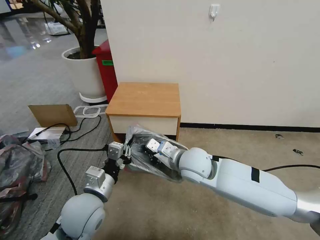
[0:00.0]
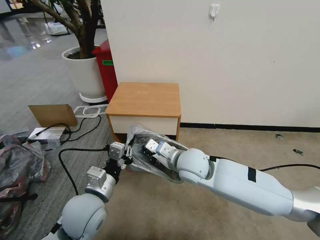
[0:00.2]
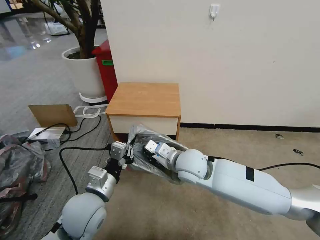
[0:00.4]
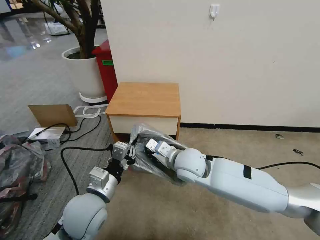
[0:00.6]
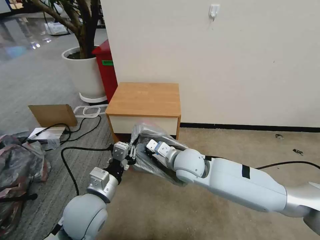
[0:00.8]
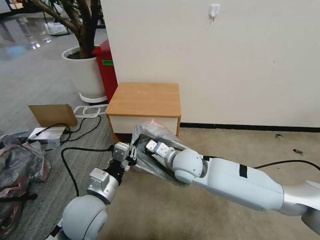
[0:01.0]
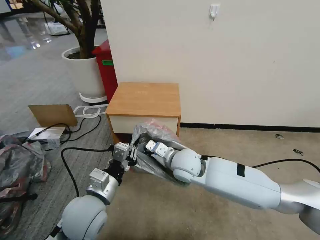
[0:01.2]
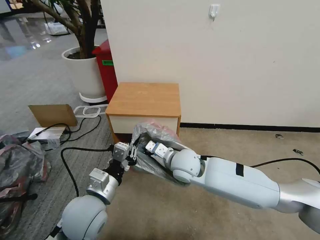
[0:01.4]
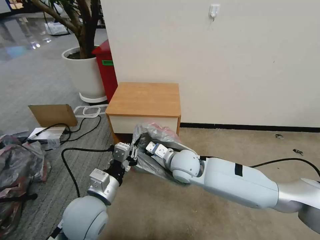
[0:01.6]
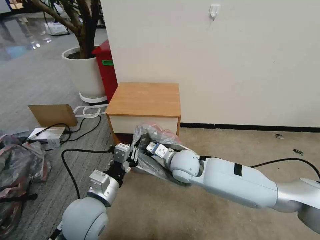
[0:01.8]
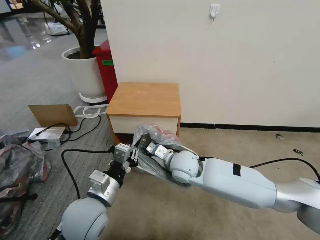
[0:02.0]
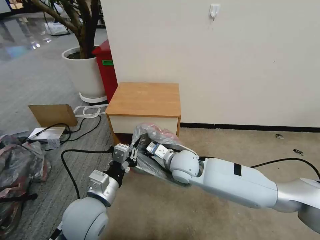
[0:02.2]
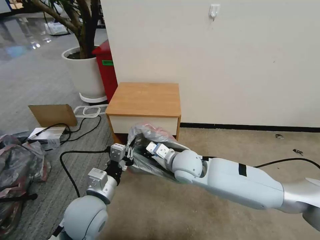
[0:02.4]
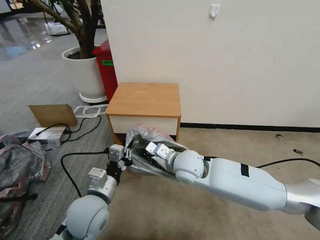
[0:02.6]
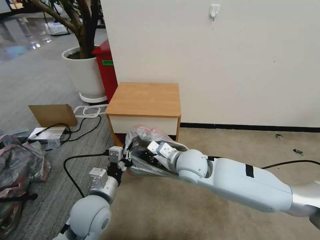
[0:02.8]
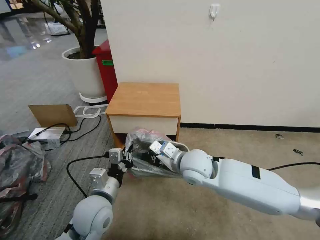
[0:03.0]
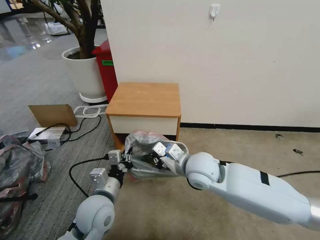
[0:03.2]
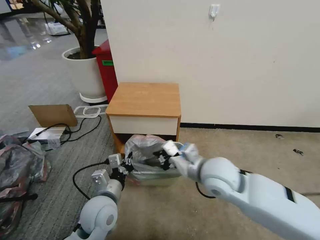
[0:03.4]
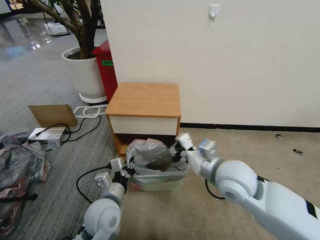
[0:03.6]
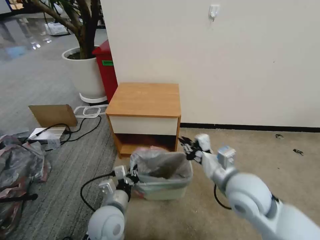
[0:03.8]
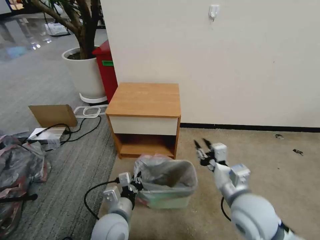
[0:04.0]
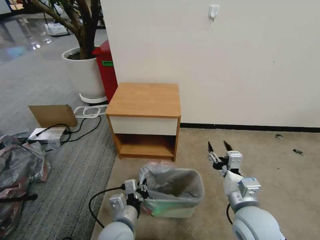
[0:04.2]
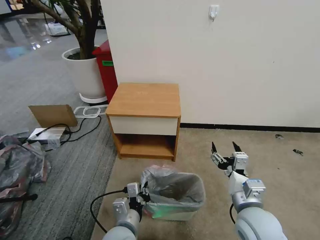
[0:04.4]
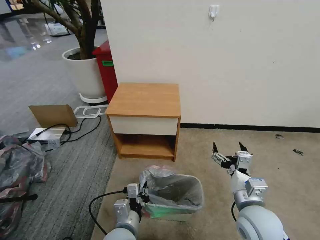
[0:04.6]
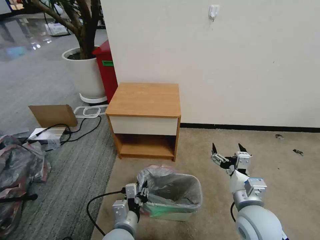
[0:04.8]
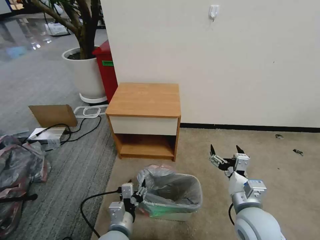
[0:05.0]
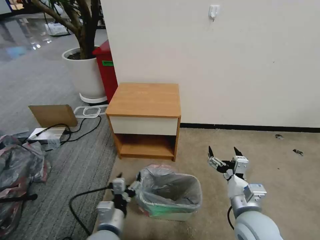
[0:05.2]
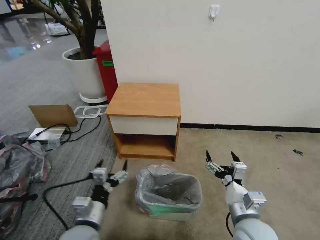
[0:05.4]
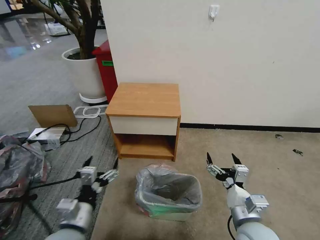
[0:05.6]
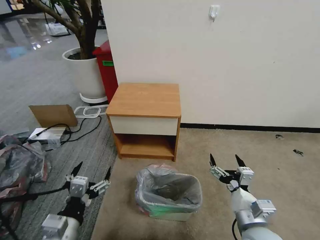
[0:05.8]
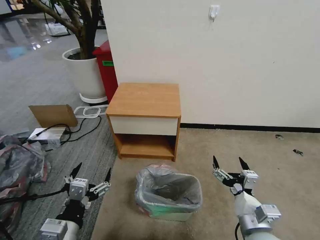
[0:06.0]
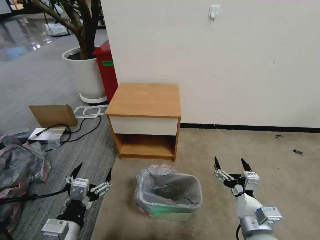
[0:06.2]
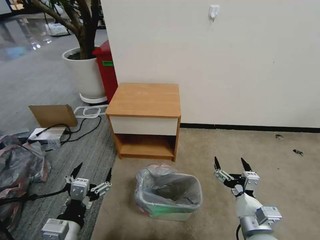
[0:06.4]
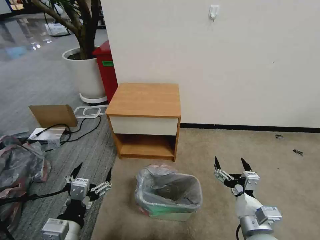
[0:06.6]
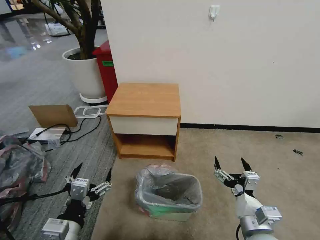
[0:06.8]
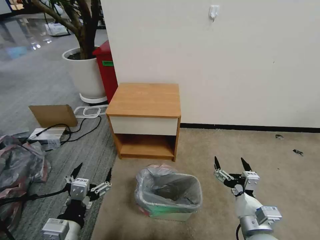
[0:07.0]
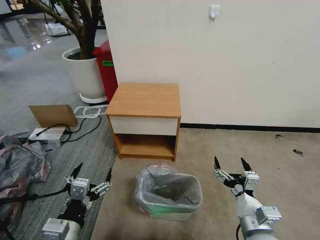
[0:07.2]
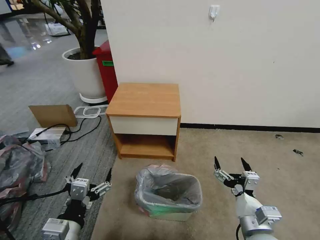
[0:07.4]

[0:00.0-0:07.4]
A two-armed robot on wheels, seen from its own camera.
Task of the whole recording: Pick up the garbage bag from the table and place it over the trash can.
0:00.0 to 0:01.4: There are only small adjustments of the grippers.
0:03.0 to 0:04.4: The left gripper heads downward, to the right and backward, covering approximately 10 cm, while the right gripper travels backward and to the right by about 20 cm, and opens.
0:04.4 to 0:06.0: The right gripper shifts about 5 cm backward. Meanwhile the left gripper travels to the left, upward and backward by some 15 cm, and opens.
0:06.0 to 0:07.4: Both grippers stay about where they are.

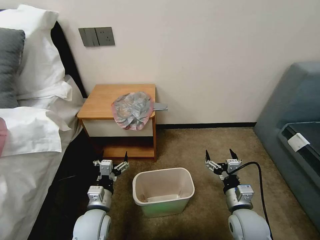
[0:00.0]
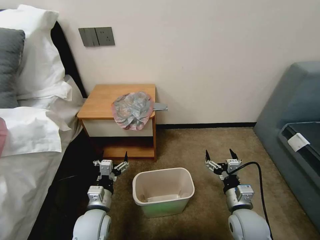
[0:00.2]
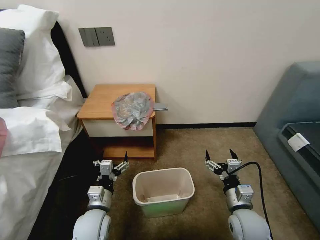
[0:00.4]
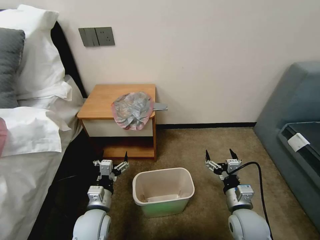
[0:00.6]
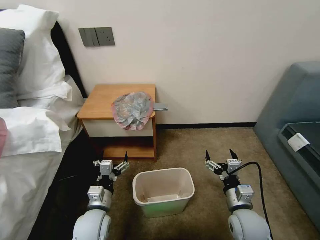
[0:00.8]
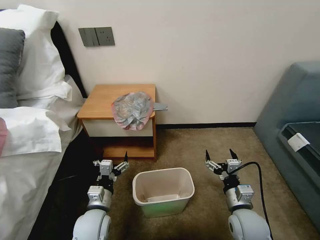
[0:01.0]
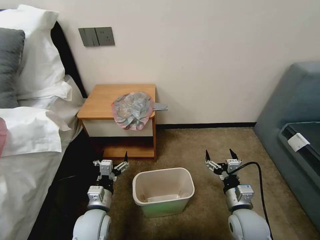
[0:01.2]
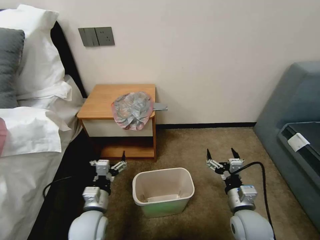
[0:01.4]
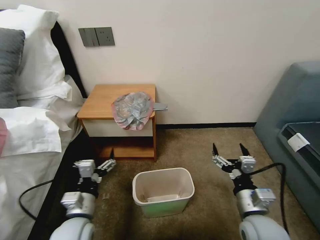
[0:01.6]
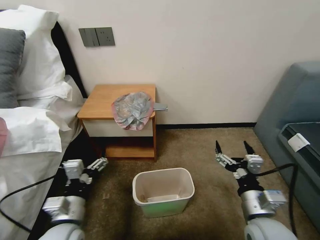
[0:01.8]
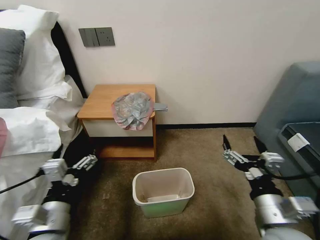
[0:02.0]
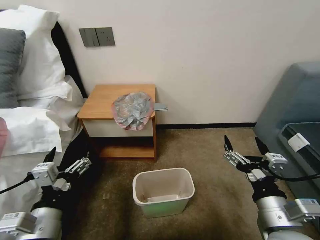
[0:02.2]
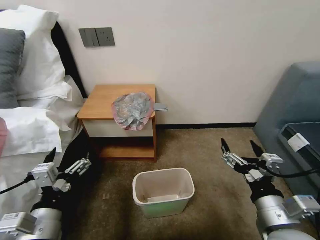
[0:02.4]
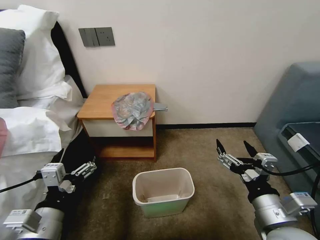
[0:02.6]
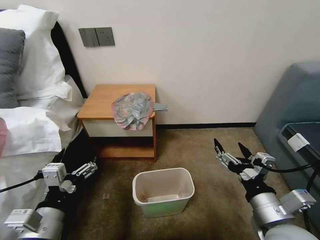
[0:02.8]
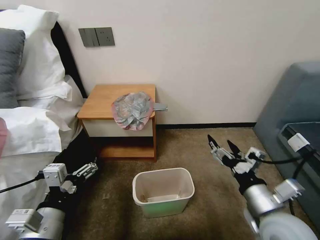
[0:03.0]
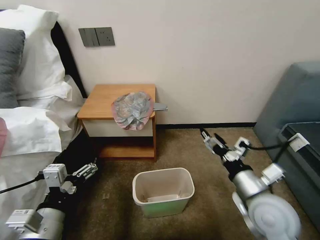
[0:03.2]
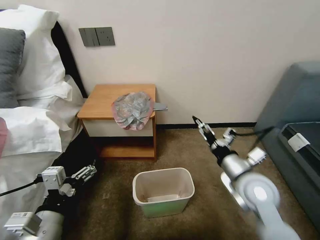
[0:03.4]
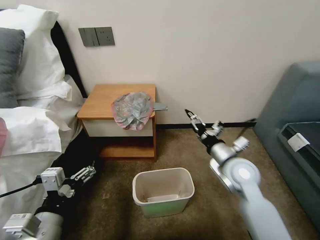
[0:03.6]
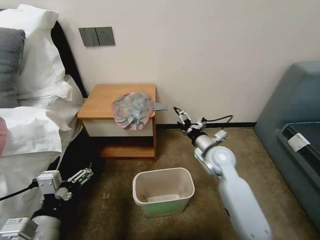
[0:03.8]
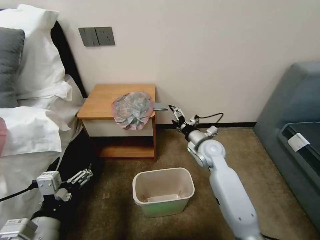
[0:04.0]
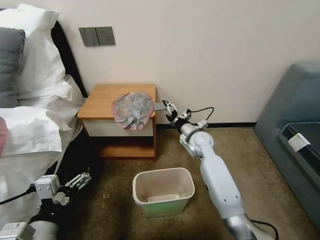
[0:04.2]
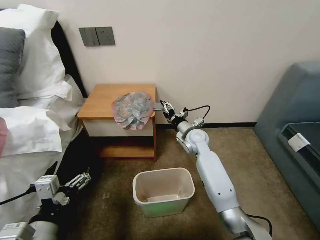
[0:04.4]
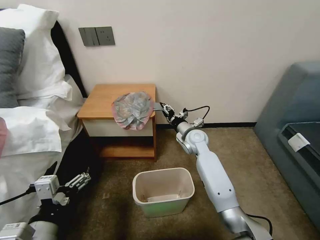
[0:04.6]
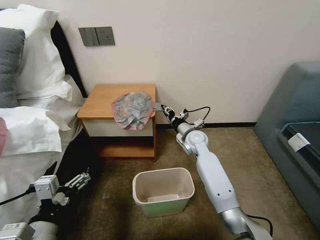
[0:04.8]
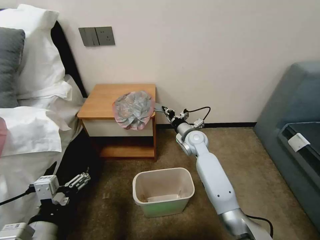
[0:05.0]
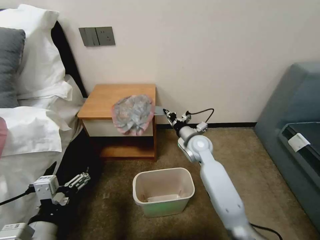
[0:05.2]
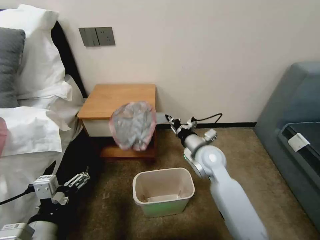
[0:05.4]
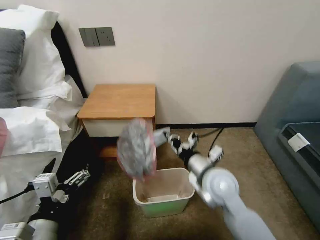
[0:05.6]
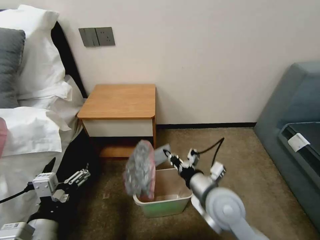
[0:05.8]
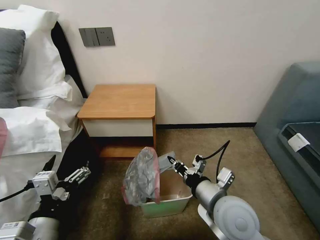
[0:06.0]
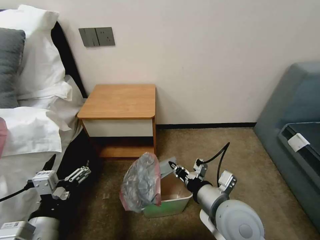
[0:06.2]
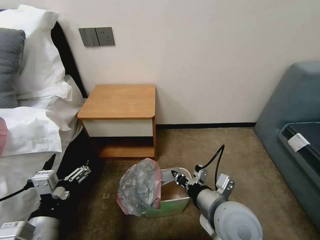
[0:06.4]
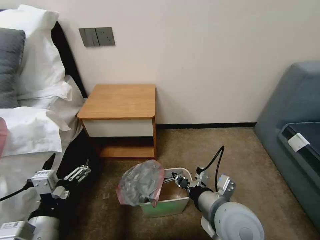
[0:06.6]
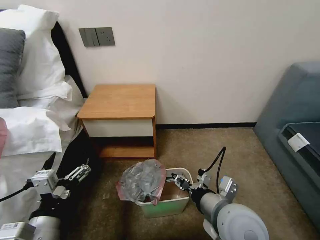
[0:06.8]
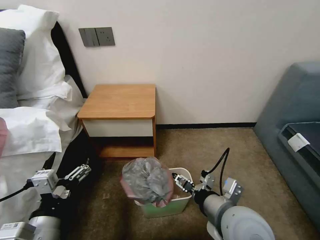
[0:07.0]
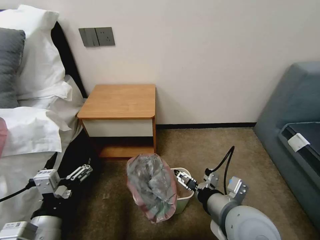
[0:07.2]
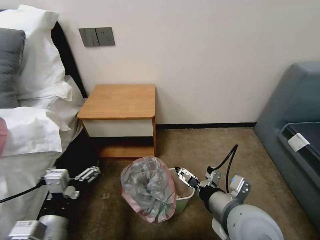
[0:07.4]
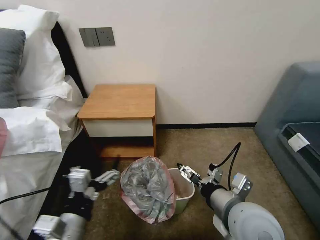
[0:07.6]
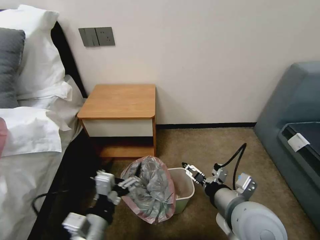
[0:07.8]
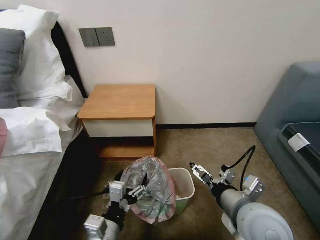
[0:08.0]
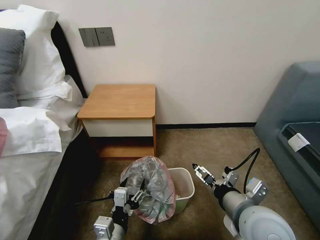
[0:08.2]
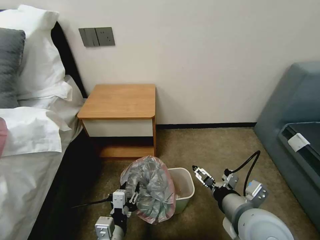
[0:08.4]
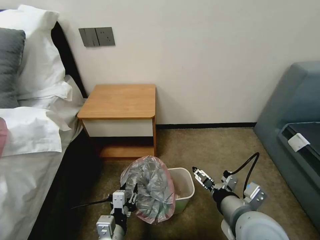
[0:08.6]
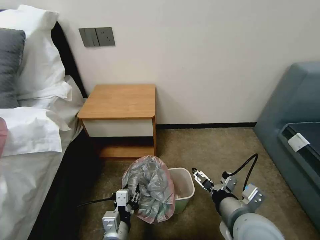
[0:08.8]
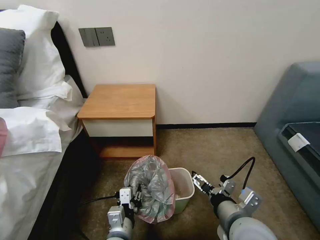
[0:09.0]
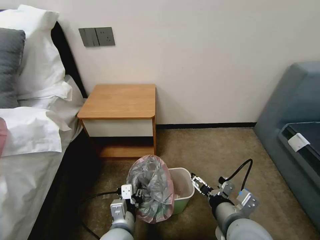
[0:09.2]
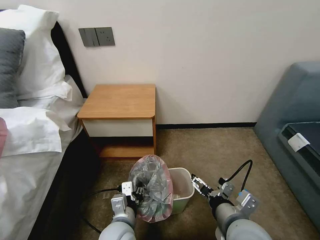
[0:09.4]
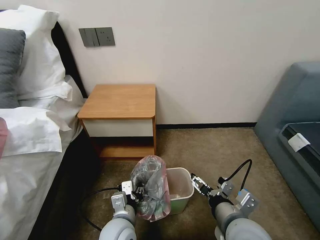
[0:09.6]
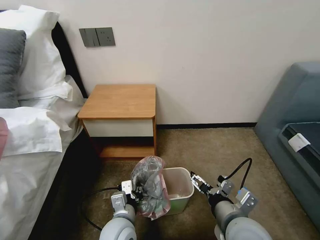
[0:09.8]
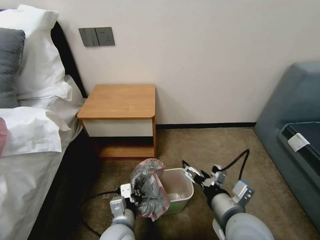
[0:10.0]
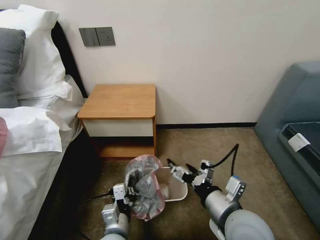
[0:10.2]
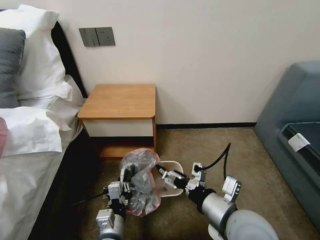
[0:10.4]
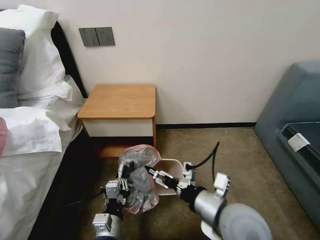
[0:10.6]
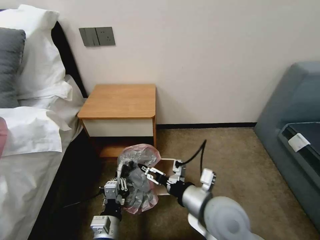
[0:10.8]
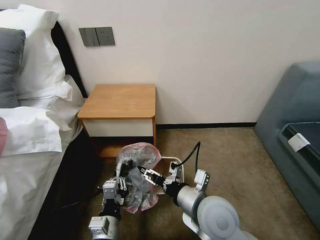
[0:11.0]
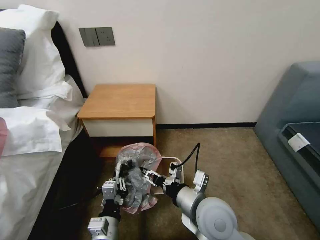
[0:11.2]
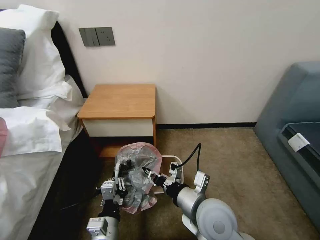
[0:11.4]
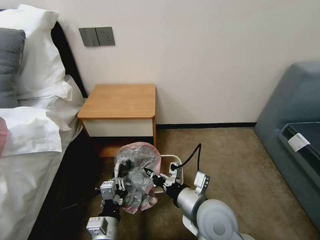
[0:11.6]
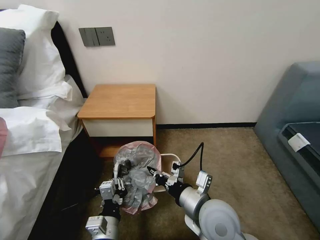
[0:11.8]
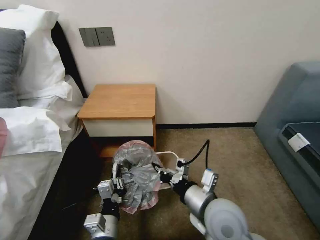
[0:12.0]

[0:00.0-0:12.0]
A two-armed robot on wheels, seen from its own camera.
Task of the whole recording: Pick up the garbage bag from the table and place it over the trash can.
0:01.6 to 0:03.0: The right gripper goes some 5 cm upward. Meanwhile the left gripper goes some 10 cm upward and backward.
0:03.0 to 0:04.4: The right gripper moves forward, approximately 30 cm.
0:04.4 to 0:06.0: The right gripper moves backward, roughly 30 cm, and closes.
0:06.0 to 0:07.6: The right gripper opens its fingers.
0:07.6 to 0:09.0: The left gripper goes approximately 15 cm downward and to the right, and closes.
0:09.0 to 0:10.4: The left gripper closes its fingers.
0:10.4 to 0:12.0: The right gripper moves some 5 cm, and closes.

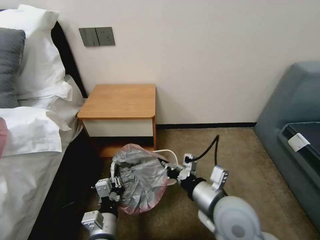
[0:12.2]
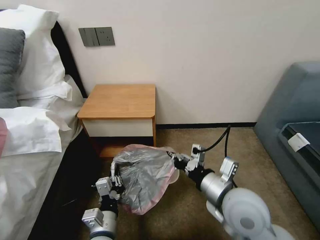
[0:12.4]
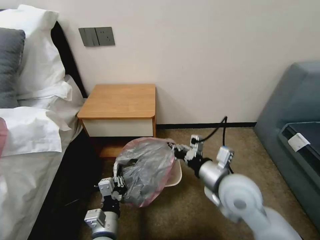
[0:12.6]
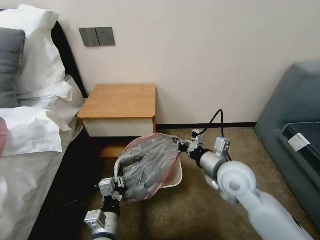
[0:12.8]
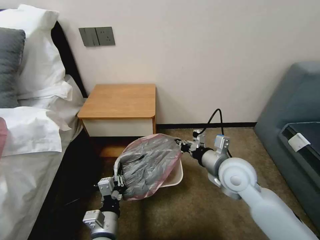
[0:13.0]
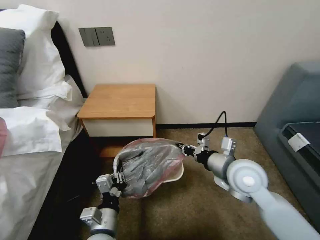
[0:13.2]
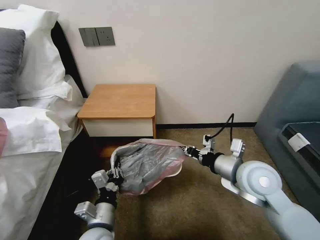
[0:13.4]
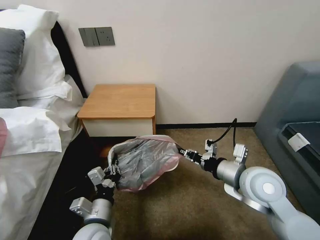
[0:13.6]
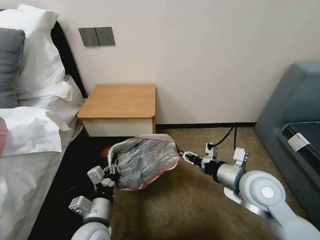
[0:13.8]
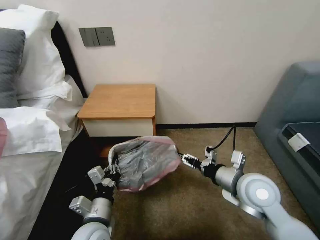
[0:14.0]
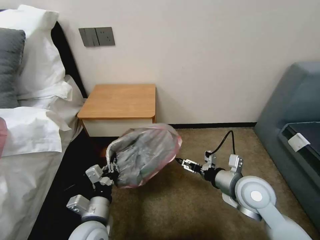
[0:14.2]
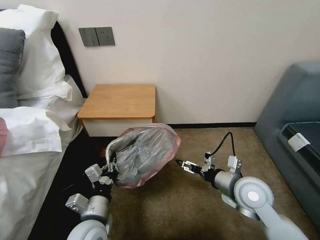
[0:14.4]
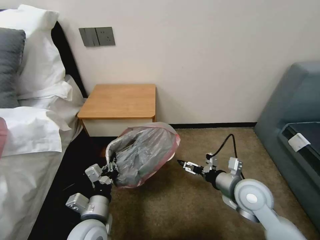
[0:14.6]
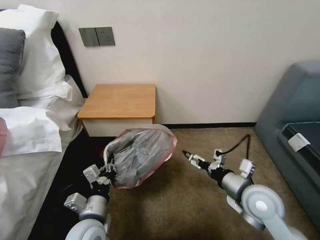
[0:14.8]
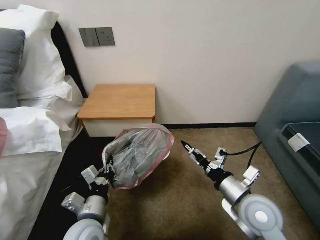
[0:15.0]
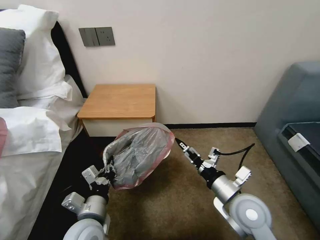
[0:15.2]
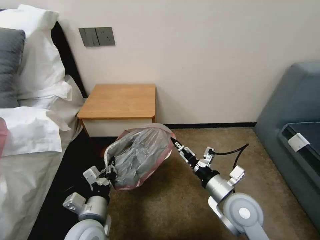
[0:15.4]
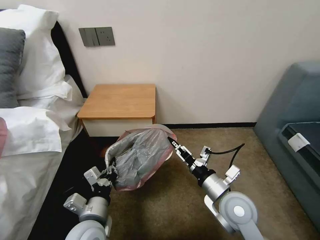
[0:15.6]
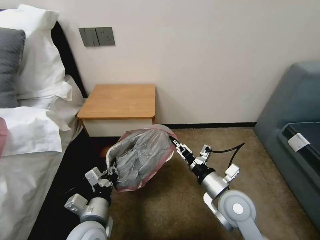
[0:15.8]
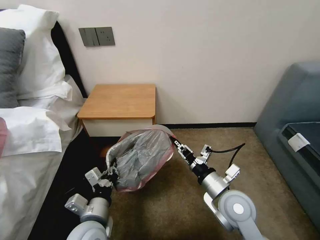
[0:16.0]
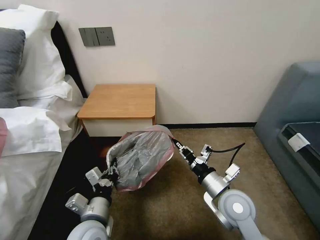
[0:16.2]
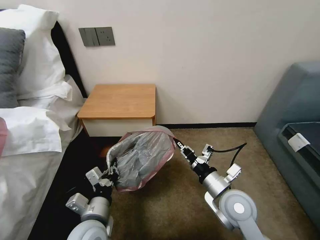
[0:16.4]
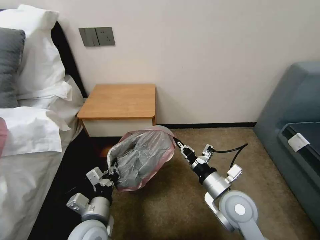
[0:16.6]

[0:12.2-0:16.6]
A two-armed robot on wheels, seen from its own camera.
Task of the whole recording: Pick up the garbage bag from the table and place it over the trash can.
0:12.2 to 0:13.6: The right gripper travels to the right and forward by approximately 10 cm.
0:13.6 to 0:15.2: The right gripper heads downward, covering some 5 cm, and opens its fingers.
0:15.2 to 0:16.6: The right gripper closes up.
